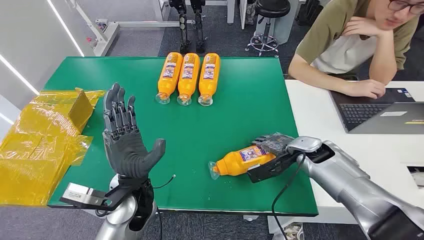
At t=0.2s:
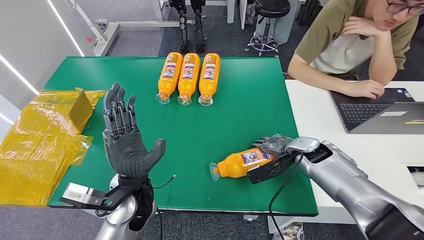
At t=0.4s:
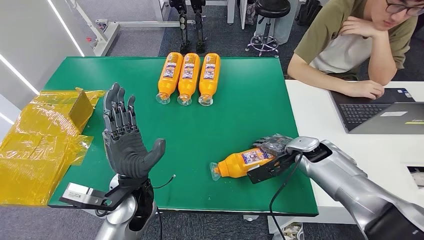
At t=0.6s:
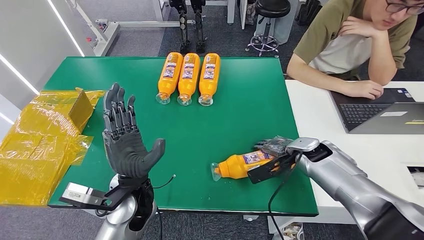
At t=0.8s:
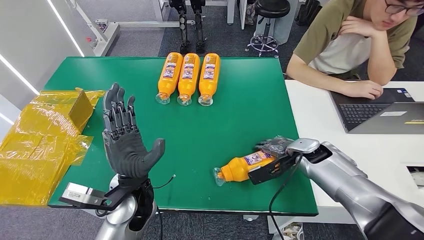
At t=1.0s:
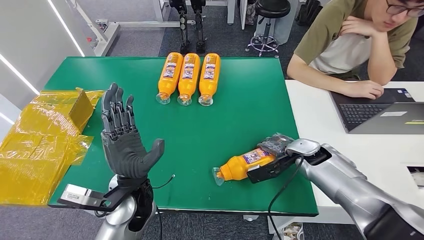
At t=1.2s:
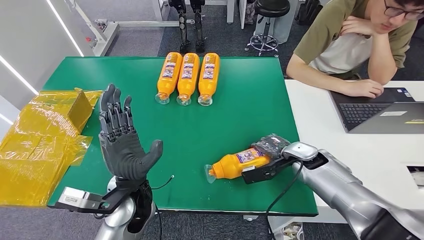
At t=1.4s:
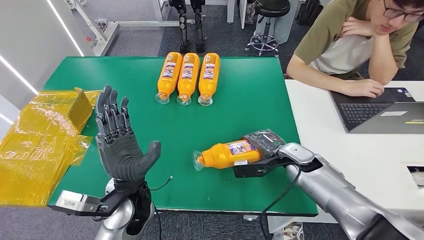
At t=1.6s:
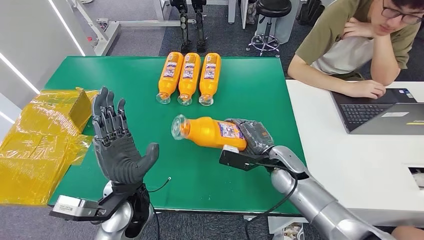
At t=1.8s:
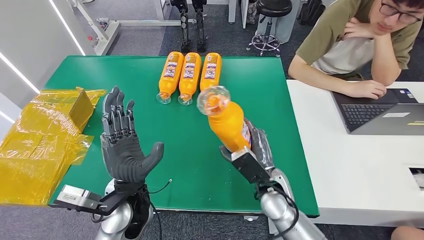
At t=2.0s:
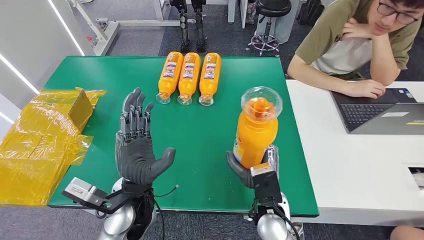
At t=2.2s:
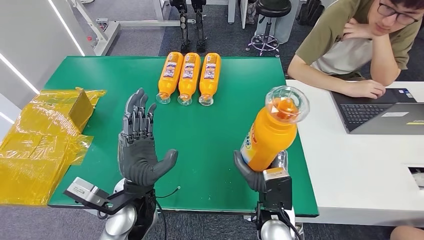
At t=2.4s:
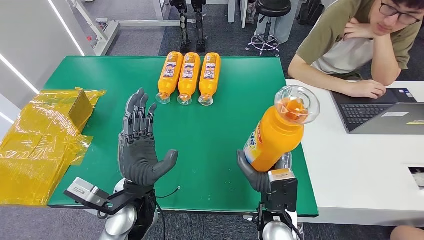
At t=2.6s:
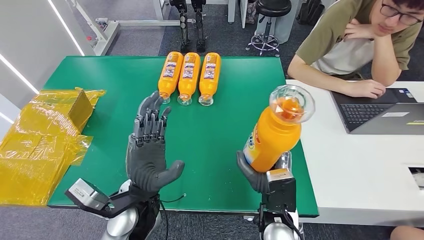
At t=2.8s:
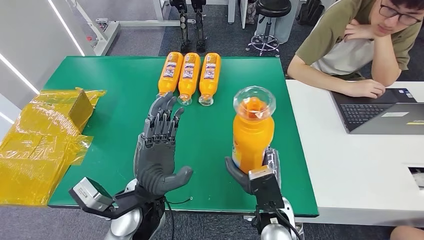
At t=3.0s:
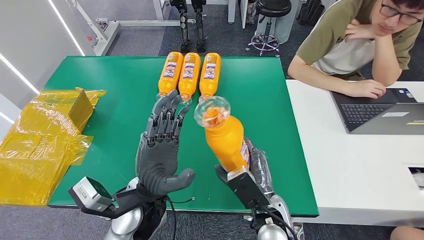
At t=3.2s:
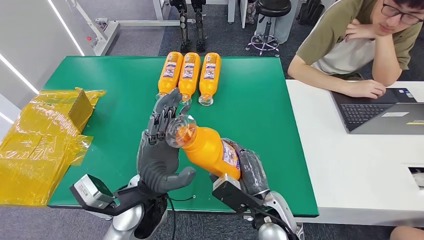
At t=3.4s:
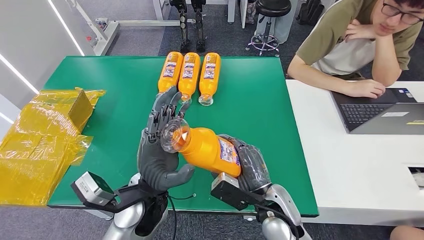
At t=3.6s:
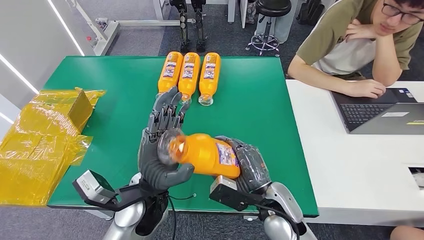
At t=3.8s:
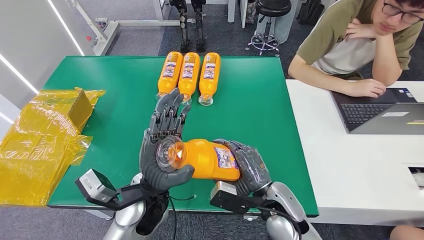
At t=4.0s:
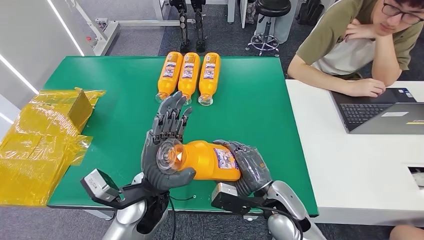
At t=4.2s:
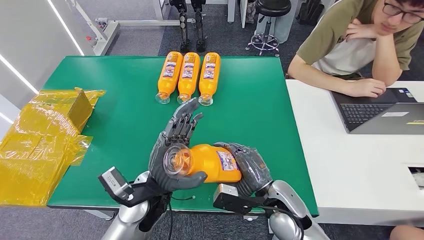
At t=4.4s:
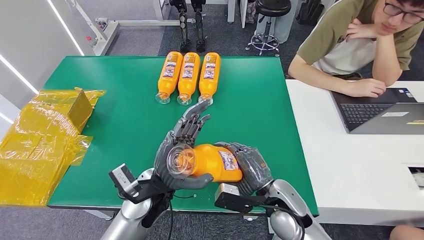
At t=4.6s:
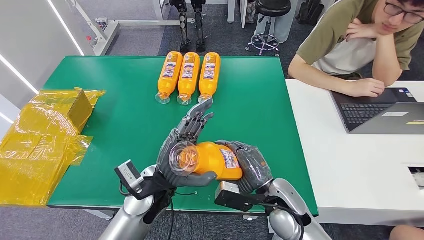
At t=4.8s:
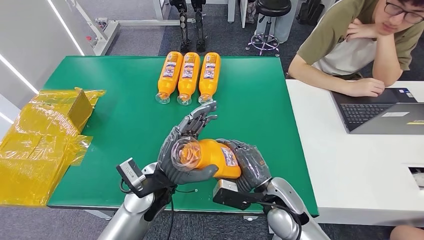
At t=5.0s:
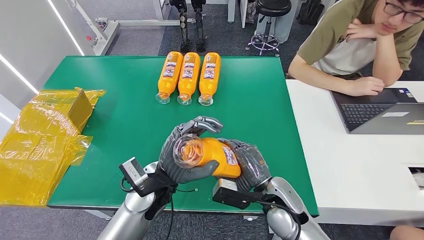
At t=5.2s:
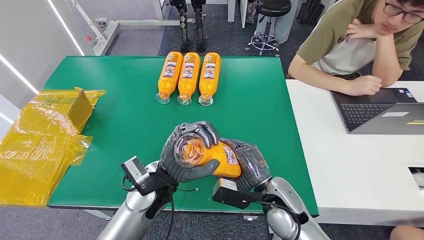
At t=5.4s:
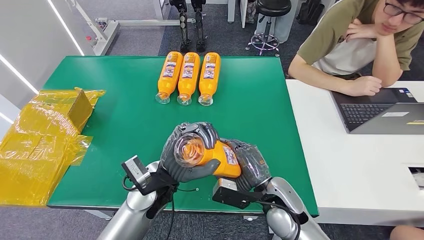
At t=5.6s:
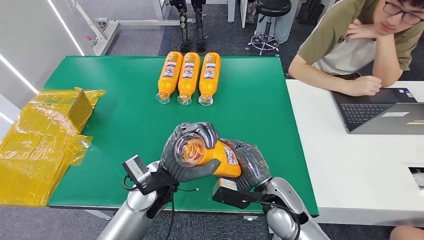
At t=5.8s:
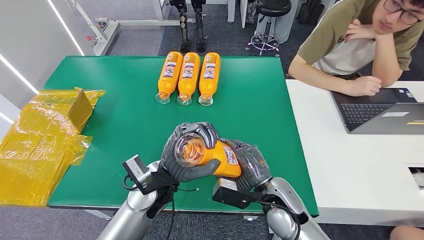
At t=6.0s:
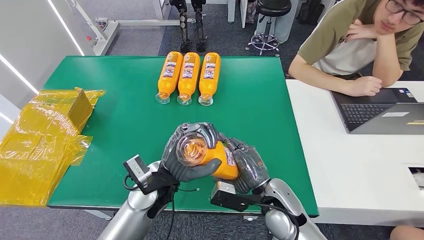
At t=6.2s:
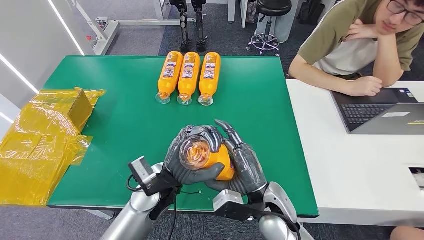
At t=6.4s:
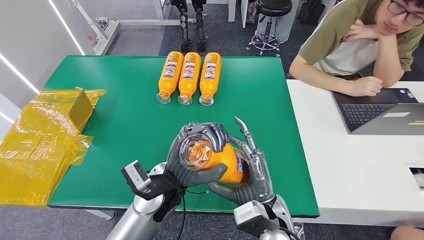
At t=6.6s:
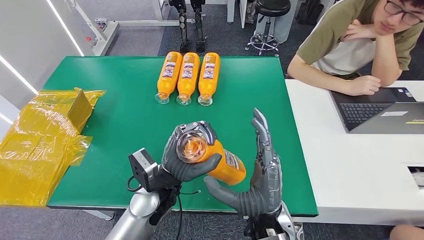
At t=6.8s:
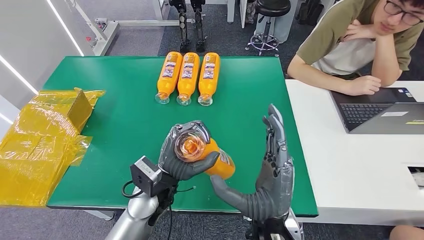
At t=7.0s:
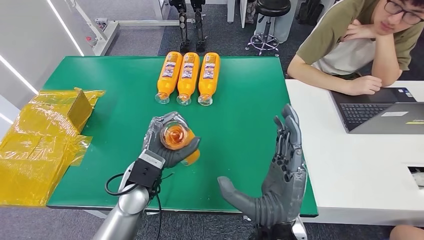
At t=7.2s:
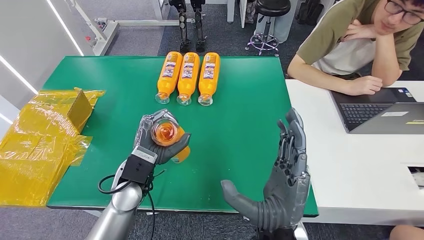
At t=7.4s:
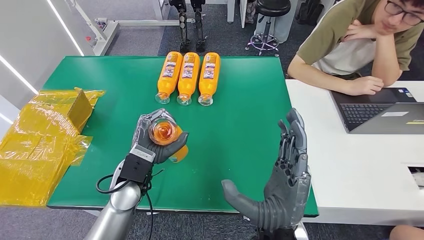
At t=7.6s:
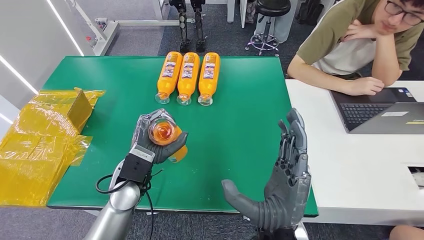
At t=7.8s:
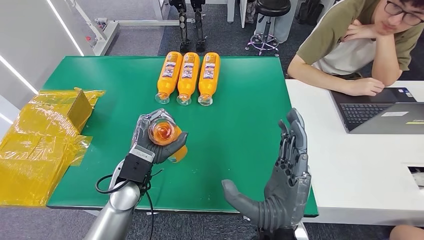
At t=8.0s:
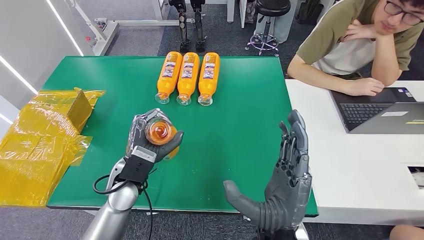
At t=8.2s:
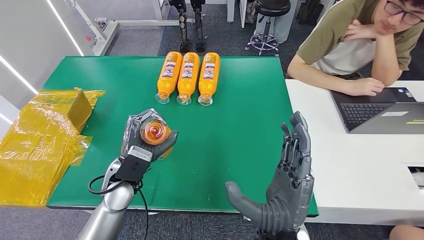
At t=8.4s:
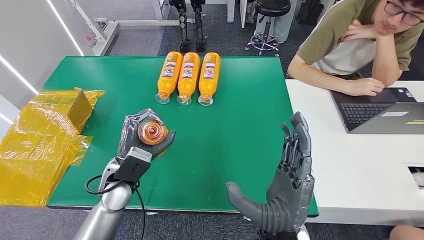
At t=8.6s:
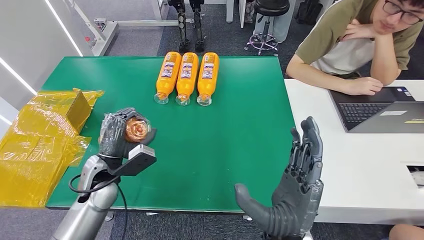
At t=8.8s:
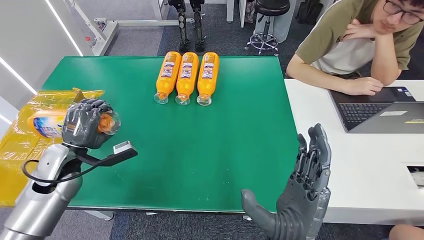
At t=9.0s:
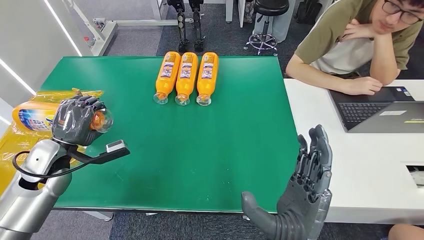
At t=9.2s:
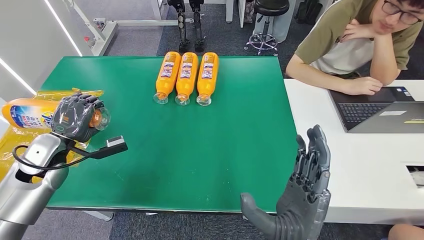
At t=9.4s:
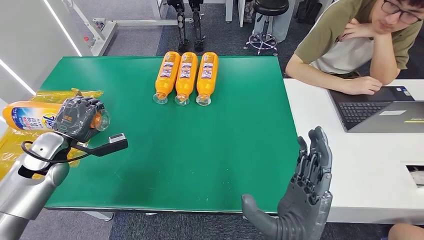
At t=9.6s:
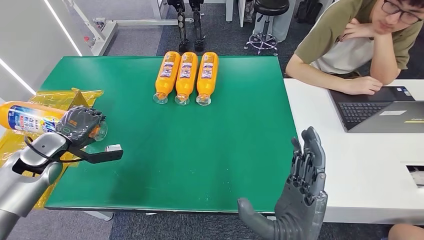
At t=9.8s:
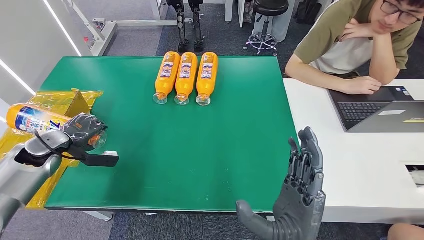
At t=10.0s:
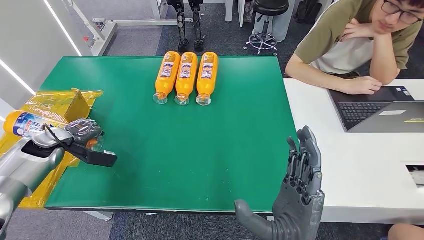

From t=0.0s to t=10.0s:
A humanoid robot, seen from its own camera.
Step, from t=0.0s to t=4.2s: Pick up the bottle from the table.
From t=2.8s to t=4.2s: The right hand moves some 5 cm.
From t=4.2s to t=5.8s: The hands move only a little.
From t=5.8s to t=7.2s: The right hand heads backward, upward and to the left, covering about 15 cm; the left hand moves to the left, about 5 cm.
From t=7.2s to t=8.6s: The left hand heads to the left, covering some 10 cm.
From t=8.6s to t=10.0s: The left hand heads to the left, covering roughly 25 cm.

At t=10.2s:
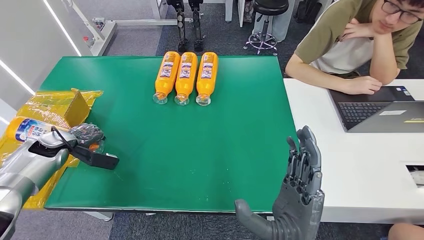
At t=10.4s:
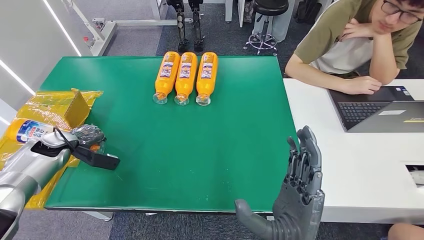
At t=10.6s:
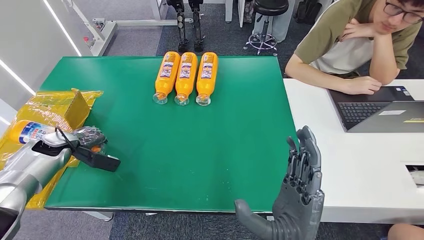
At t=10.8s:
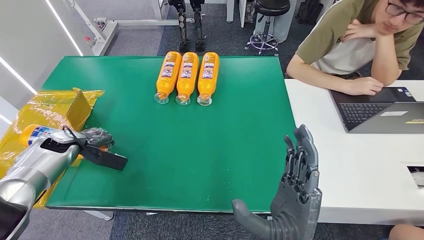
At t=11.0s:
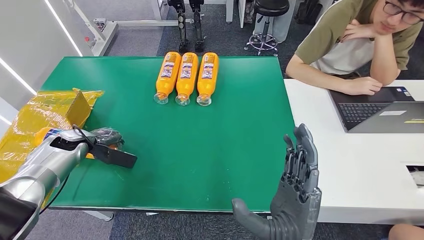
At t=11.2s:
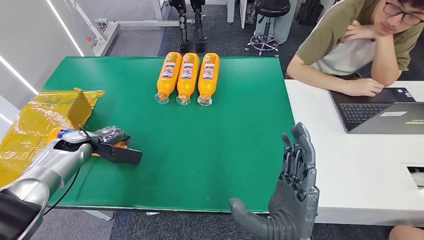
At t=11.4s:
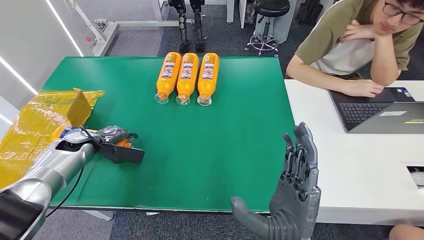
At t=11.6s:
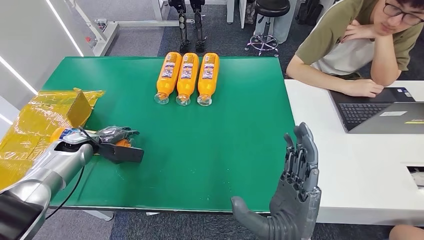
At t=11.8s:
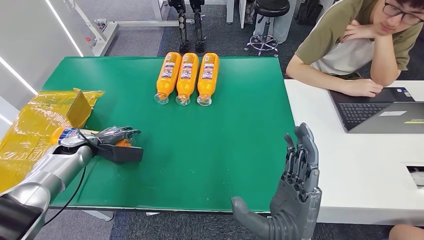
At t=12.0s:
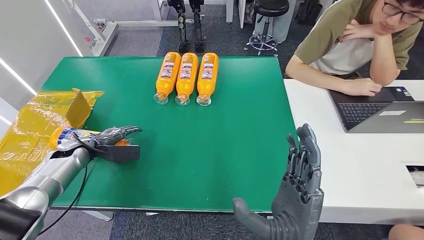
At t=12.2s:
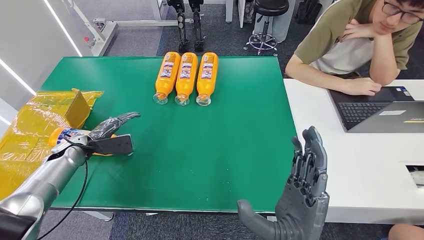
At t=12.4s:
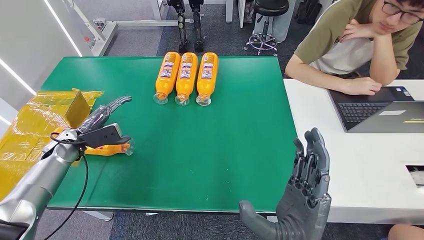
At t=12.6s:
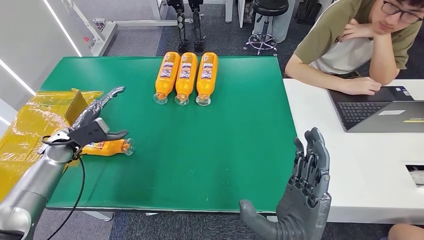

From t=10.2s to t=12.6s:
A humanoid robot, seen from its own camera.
Step, from t=10.2s to t=12.6s: Turn the bottle to the front side.
From t=10.2s to t=11.4s: The left hand heads to the right, covering approximately 5 cm.
